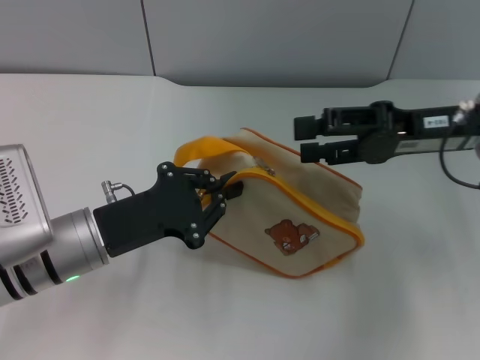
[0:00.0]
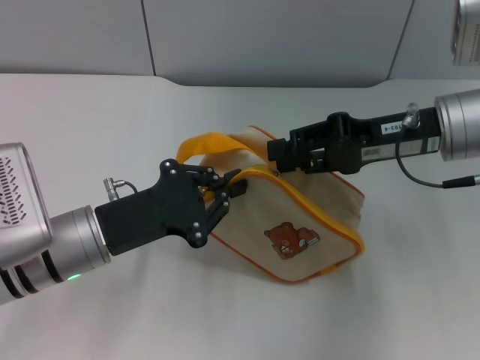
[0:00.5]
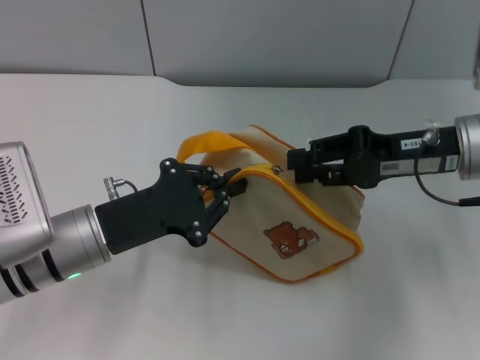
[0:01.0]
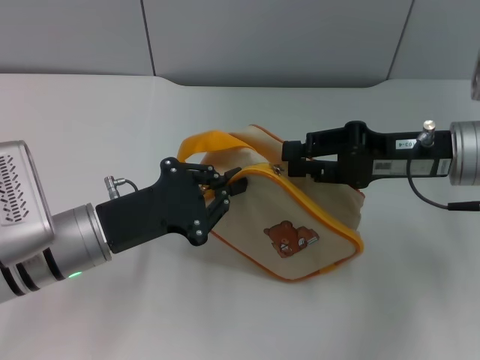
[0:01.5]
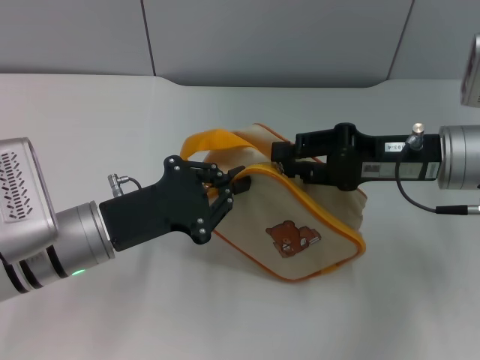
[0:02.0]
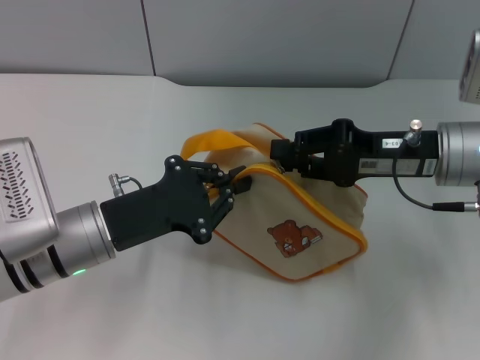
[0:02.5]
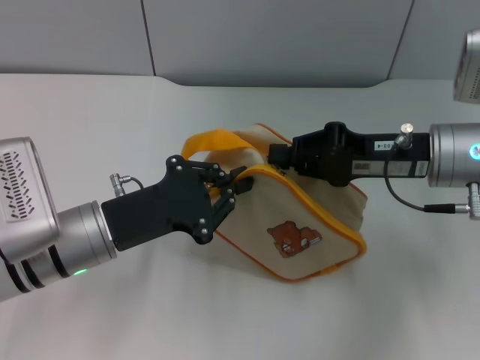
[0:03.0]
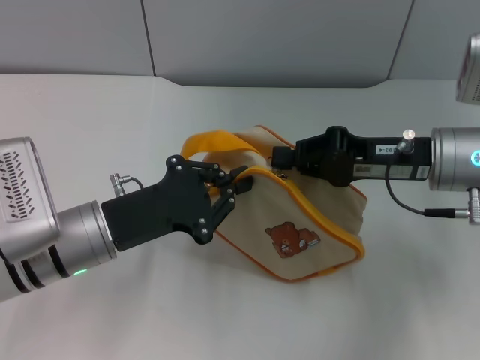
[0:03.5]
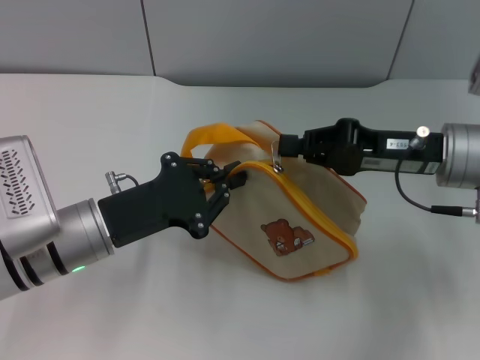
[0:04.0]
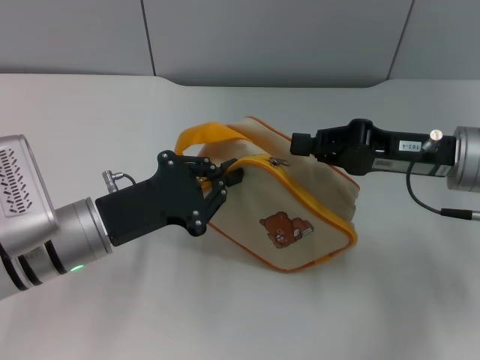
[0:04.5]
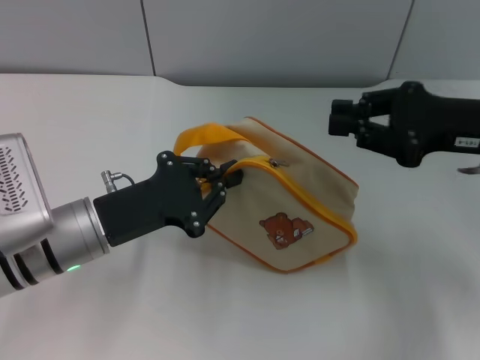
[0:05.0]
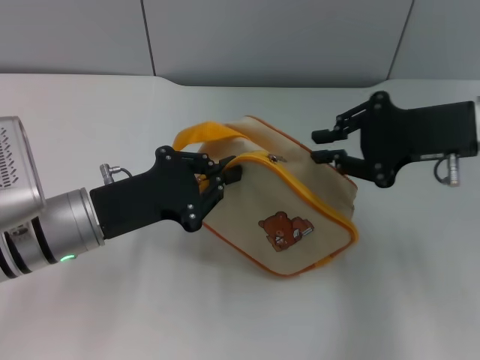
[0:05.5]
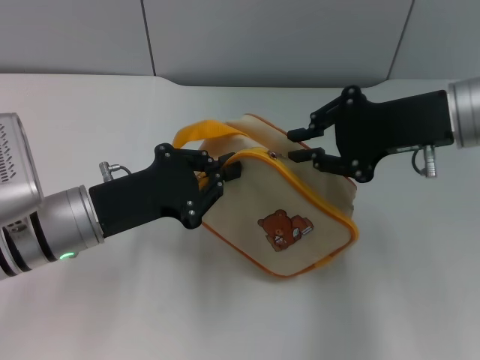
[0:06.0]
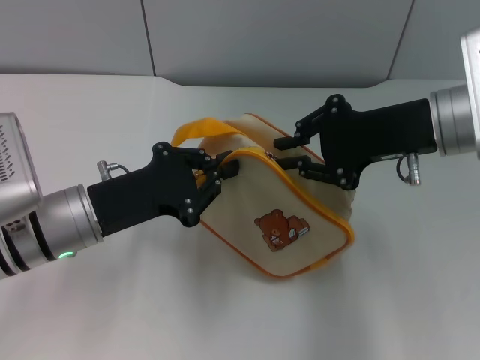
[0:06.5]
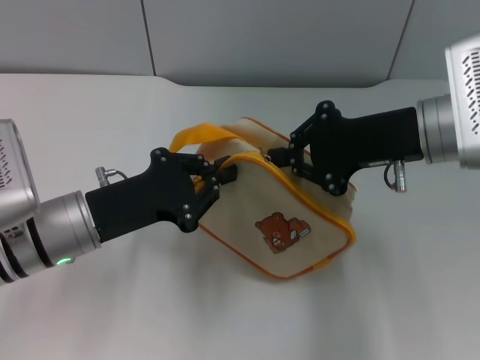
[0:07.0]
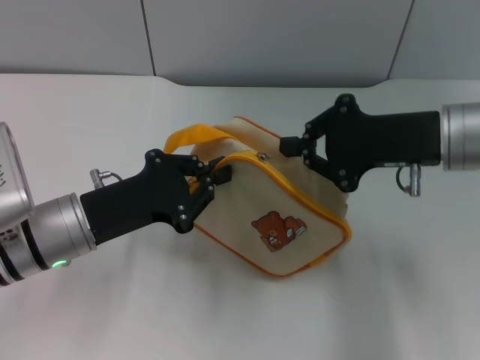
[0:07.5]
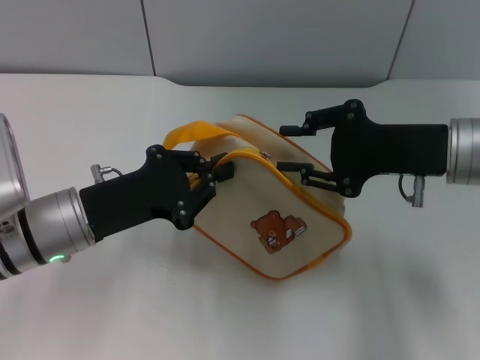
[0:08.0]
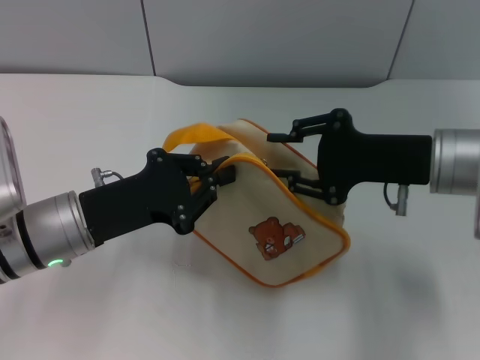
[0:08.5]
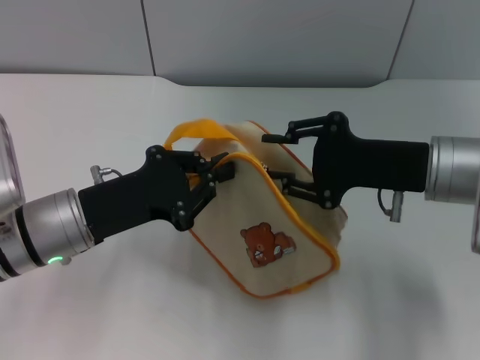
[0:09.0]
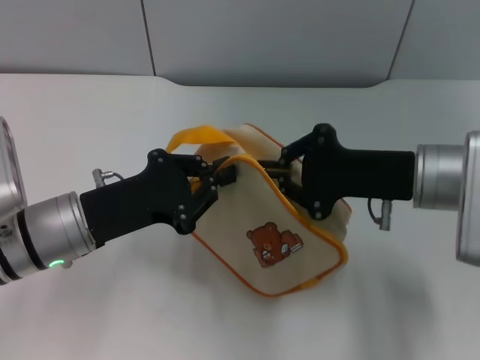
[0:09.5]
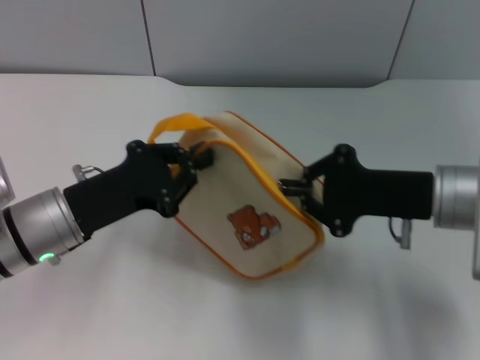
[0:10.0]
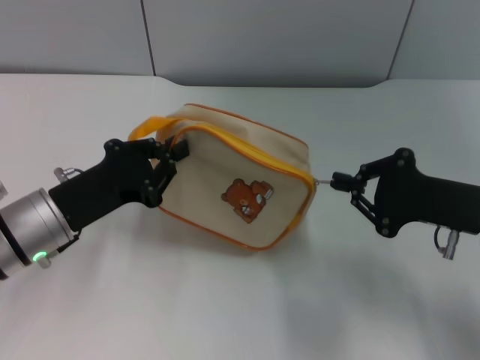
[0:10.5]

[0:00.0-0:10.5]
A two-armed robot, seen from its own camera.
0:00.0 to 0:02.0: The right gripper closes.
0:02.0 to 0:04.0: The right gripper closes.
0:04.0 to 0:06.5: The right gripper shifts by about 5 cm.
0:06.5 to 0:08.5: The grippers move only a little.
0:08.5 to 0:10.5: The right gripper goes some 5 cm to the right, and closes up.

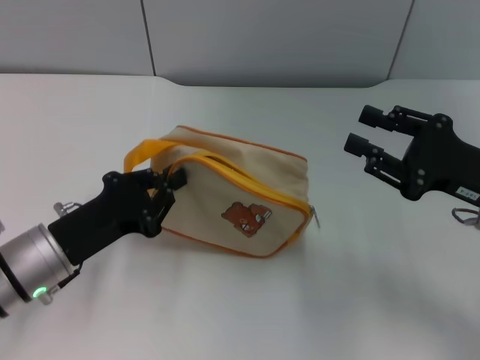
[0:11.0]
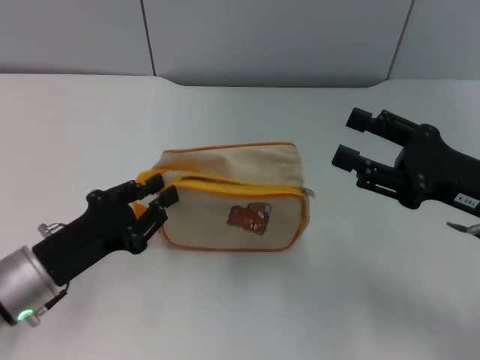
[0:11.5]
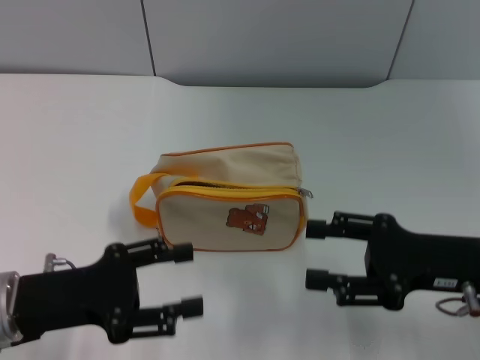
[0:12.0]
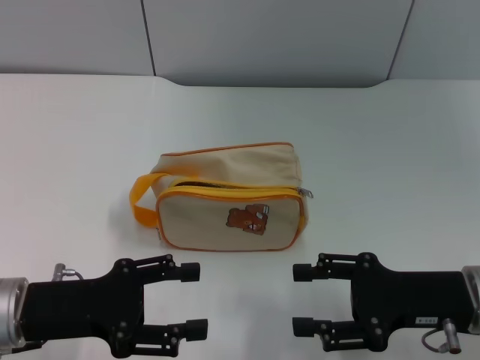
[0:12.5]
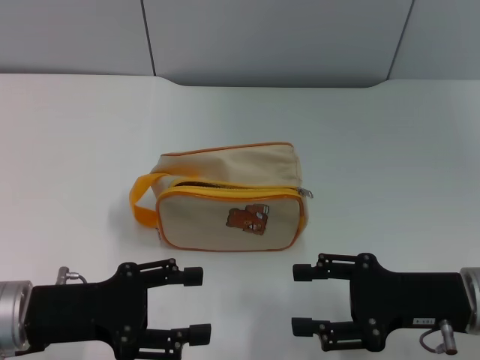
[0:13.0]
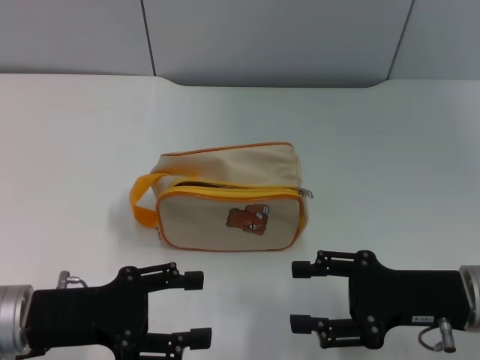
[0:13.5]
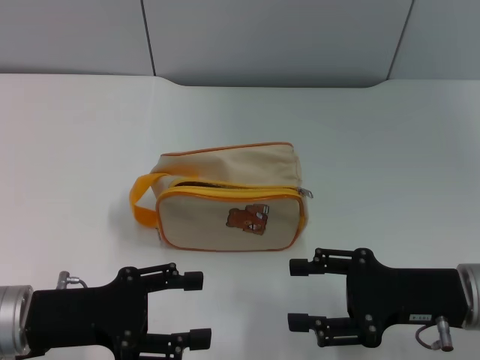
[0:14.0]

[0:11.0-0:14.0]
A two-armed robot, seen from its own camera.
Step, 0:11.0 to 0:11.5: Place the bag on the table with left gripper.
0:11.0 to 0:12.5: The right gripper moves about 5 cm, and opens up. The left gripper opens up.
0:12.5 to 0:14.0: Both grippers stay about where they are.
